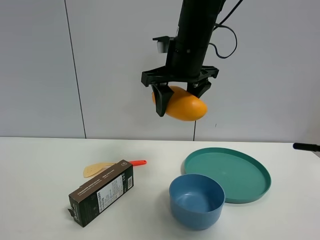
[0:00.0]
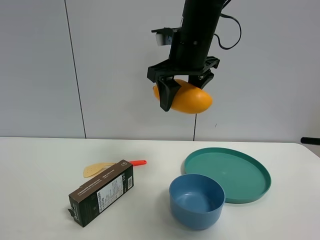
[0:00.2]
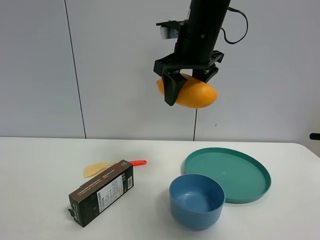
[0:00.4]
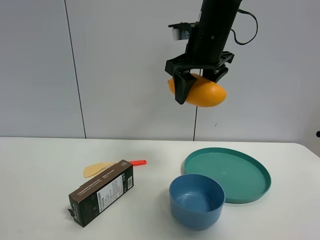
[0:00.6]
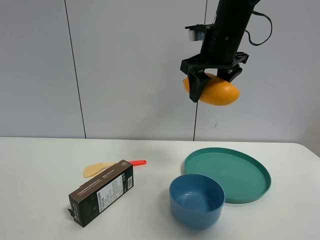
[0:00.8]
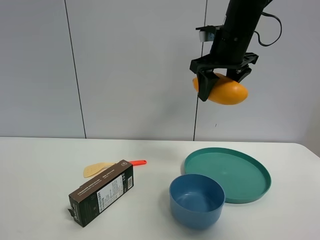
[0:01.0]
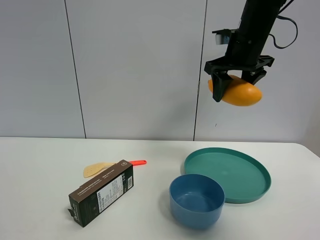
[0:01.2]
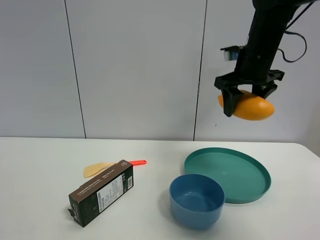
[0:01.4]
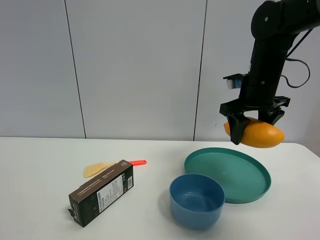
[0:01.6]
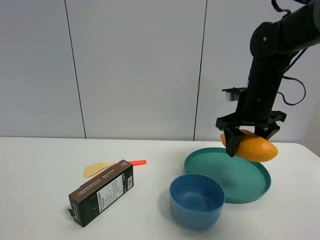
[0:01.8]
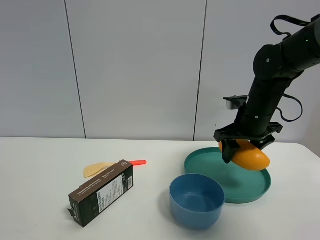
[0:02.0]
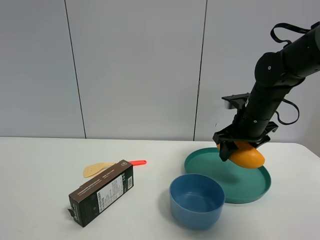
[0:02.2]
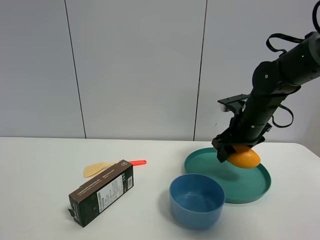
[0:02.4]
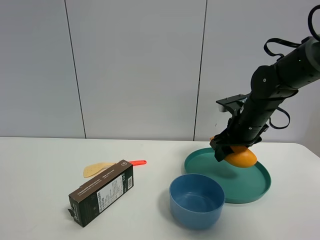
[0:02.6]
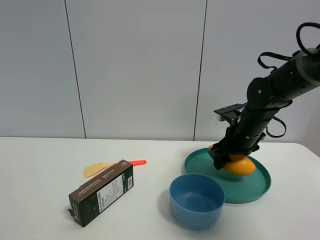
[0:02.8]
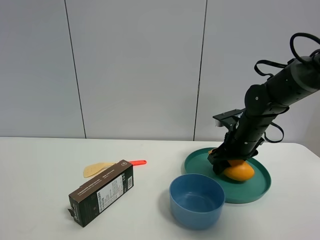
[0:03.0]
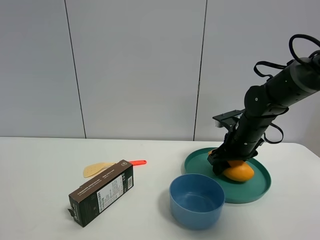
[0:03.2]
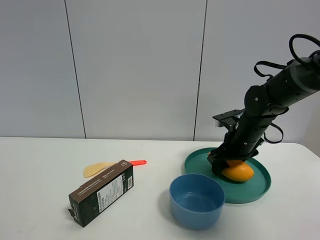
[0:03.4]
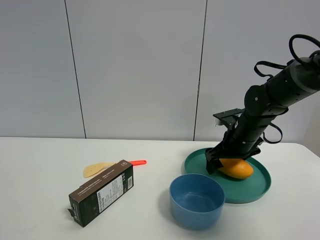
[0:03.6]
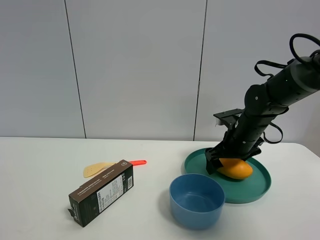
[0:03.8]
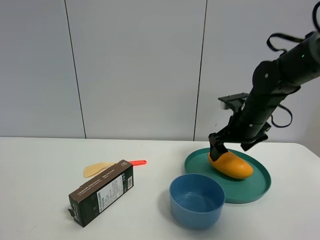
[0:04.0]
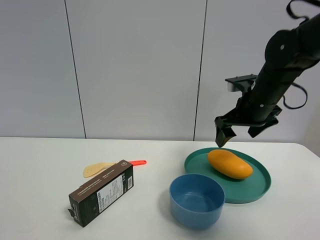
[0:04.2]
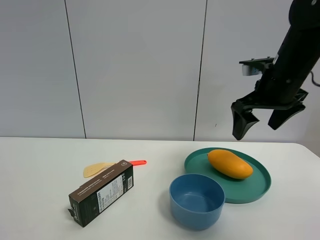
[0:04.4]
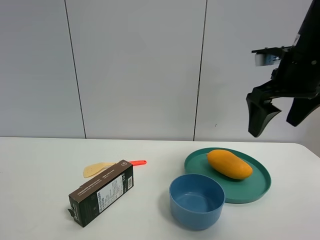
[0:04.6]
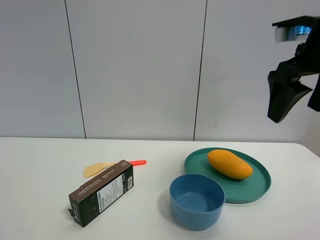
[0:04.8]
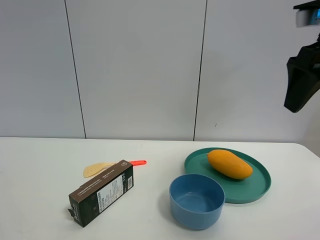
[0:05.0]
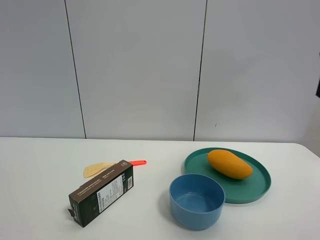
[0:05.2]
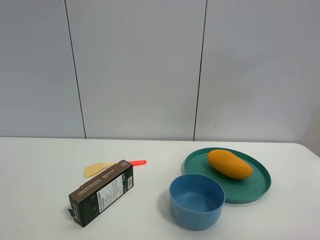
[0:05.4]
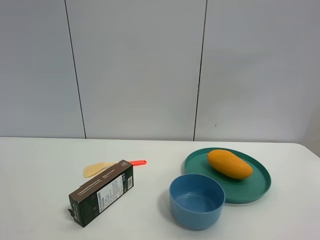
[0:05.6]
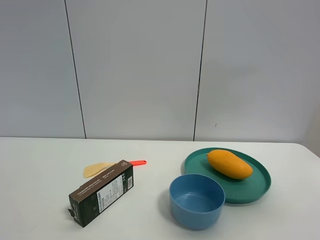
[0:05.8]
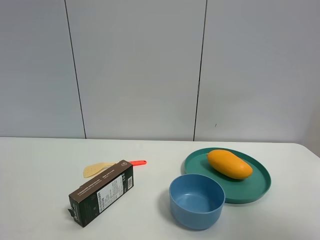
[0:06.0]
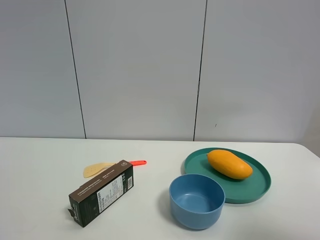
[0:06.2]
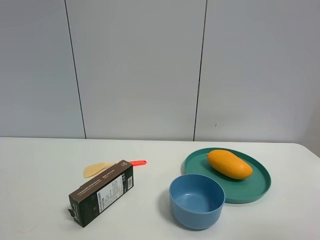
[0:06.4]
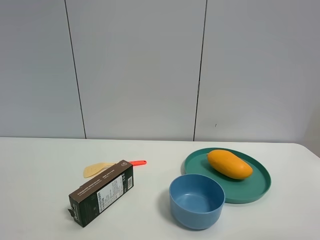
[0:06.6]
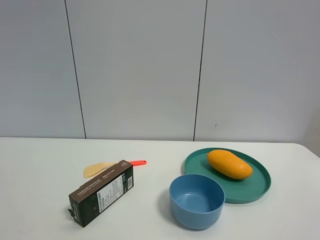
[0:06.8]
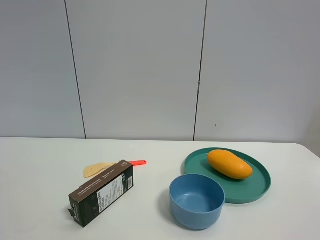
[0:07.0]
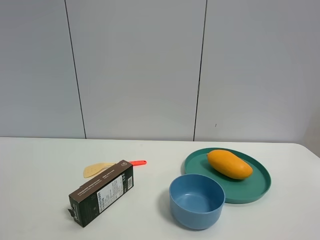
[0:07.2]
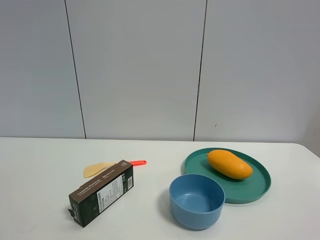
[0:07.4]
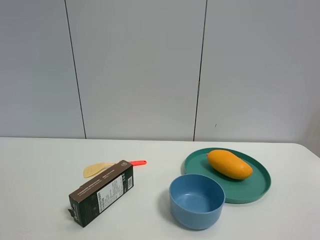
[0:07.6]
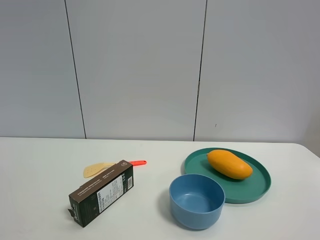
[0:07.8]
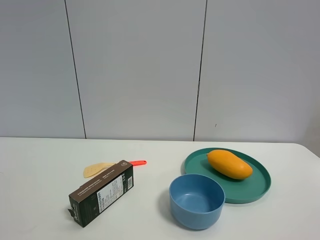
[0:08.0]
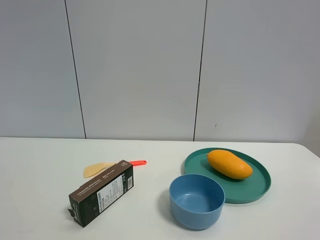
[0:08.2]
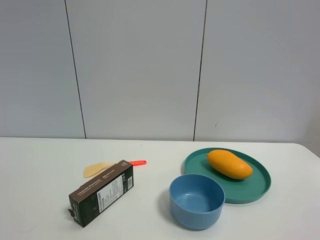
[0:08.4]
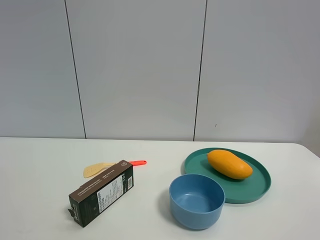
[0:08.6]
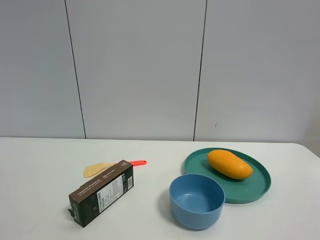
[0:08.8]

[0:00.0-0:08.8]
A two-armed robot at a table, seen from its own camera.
Task of the whole recording: the gripper move the object.
Step, 0:00.0 to 0:04.2: Place the mango into the green plate with the right gripper.
0:00.0 to 0:01.4: The right gripper is displaced to the right by roughly 15 cm.
0:01.4 to 0:03.0: The right gripper goes some 15 cm downward.
0:03.0 to 0:04.4: The right gripper goes some 15 cm upward and backward, and opens its fingers.
0:04.4 to 0:05.8: The right gripper heads backward, upward and to the right, covering some 25 cm.
0:05.8 to 0:07.4: The right gripper heads backward and downward, covering about 20 cm.
0:07.4 to 0:08.8: Both grippers stay about where they are.

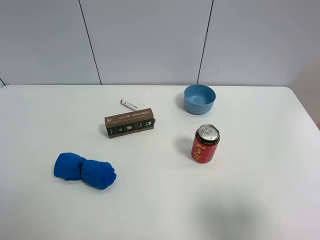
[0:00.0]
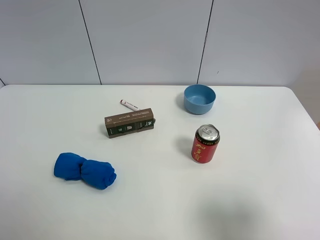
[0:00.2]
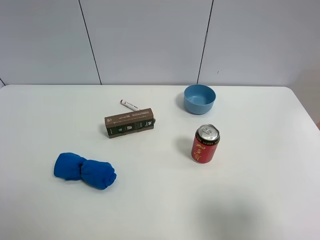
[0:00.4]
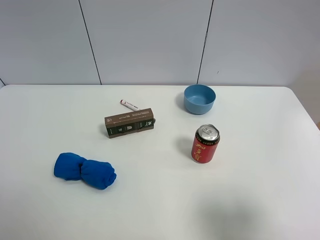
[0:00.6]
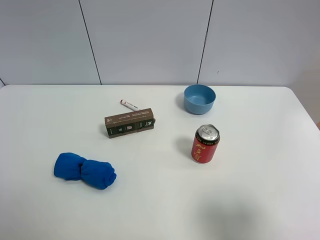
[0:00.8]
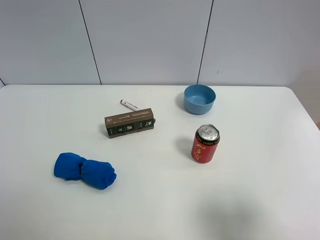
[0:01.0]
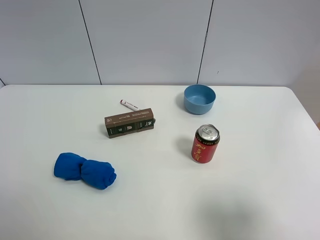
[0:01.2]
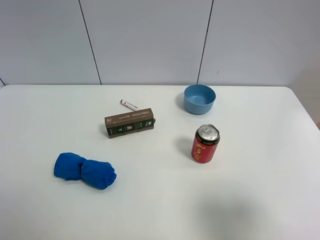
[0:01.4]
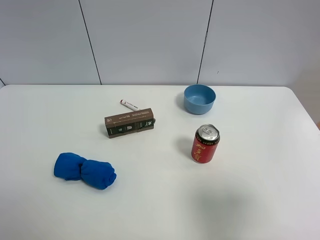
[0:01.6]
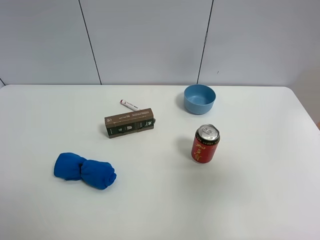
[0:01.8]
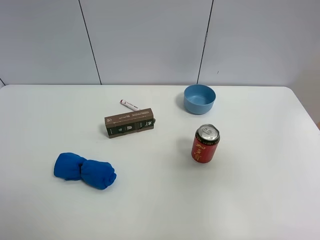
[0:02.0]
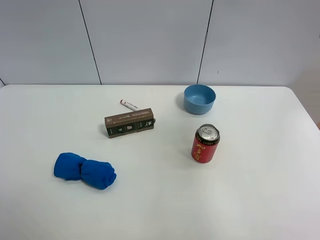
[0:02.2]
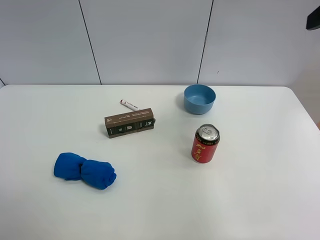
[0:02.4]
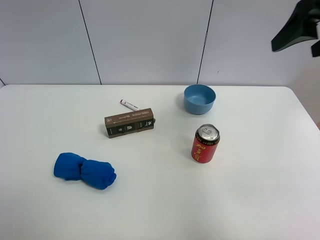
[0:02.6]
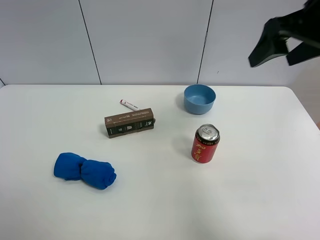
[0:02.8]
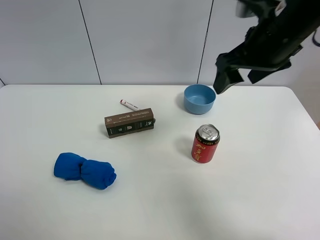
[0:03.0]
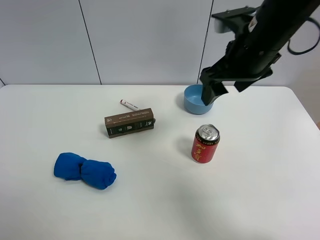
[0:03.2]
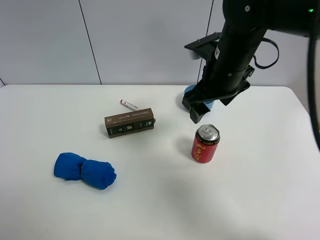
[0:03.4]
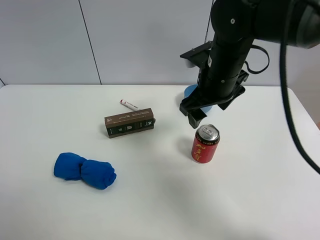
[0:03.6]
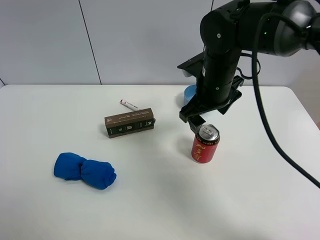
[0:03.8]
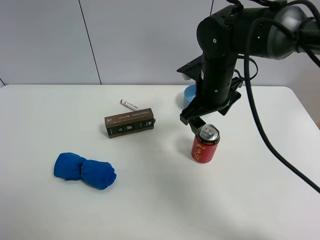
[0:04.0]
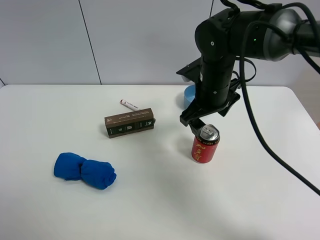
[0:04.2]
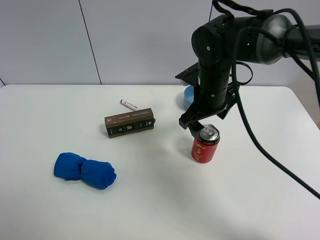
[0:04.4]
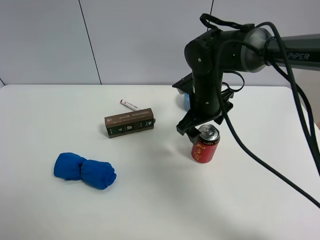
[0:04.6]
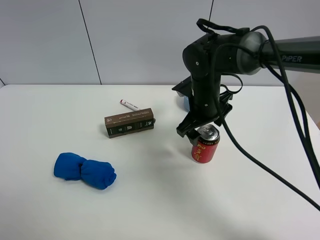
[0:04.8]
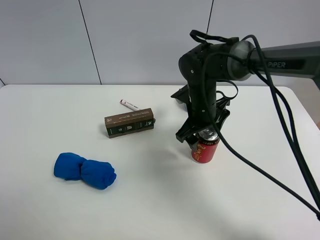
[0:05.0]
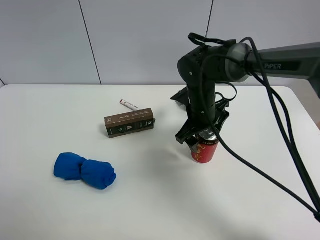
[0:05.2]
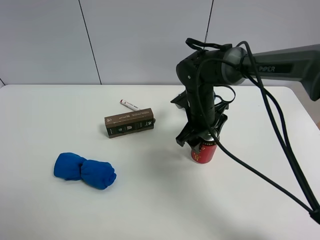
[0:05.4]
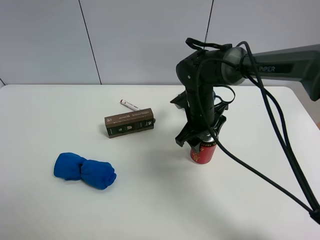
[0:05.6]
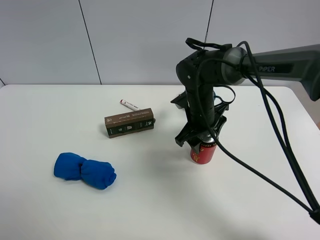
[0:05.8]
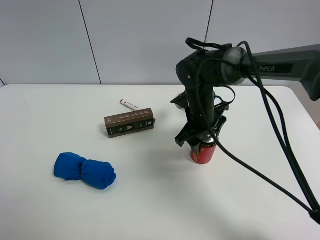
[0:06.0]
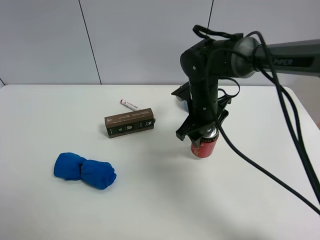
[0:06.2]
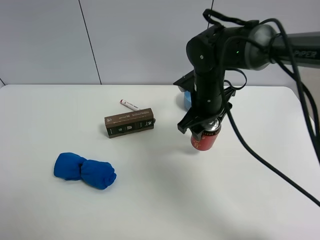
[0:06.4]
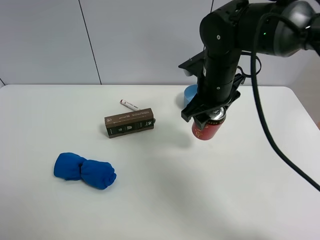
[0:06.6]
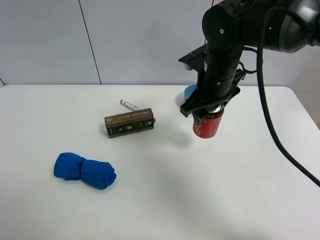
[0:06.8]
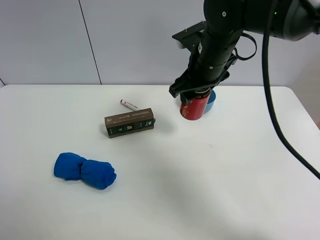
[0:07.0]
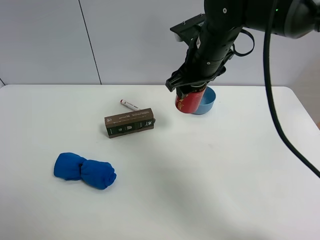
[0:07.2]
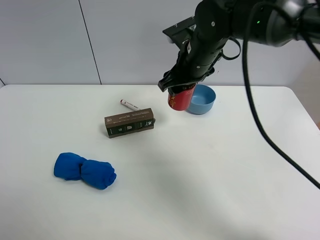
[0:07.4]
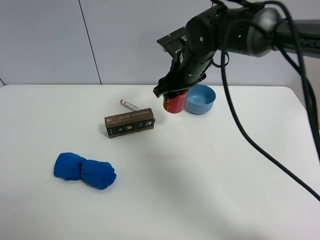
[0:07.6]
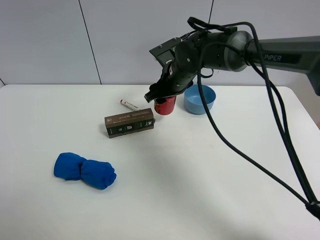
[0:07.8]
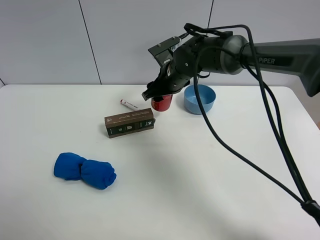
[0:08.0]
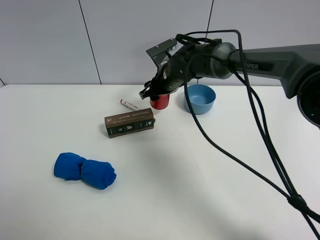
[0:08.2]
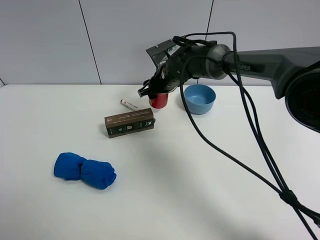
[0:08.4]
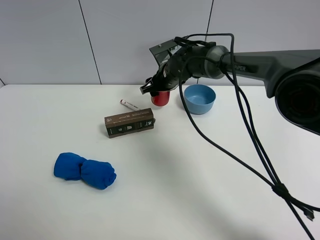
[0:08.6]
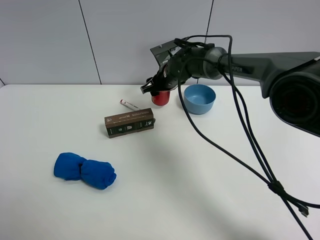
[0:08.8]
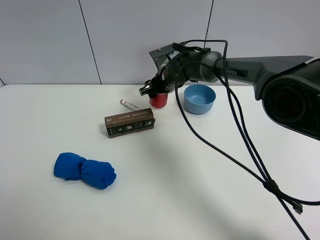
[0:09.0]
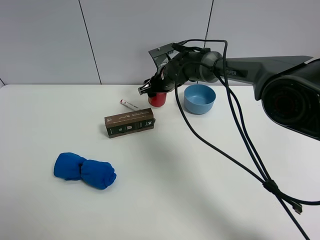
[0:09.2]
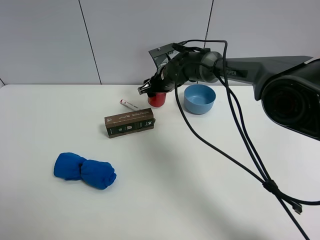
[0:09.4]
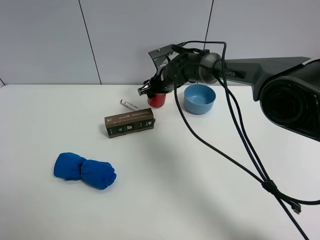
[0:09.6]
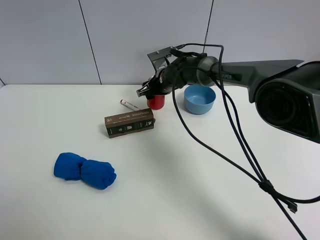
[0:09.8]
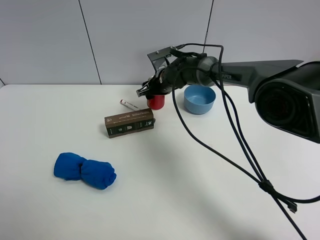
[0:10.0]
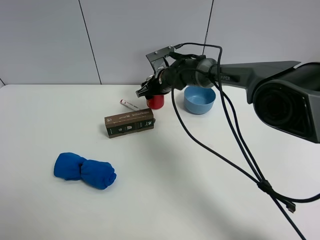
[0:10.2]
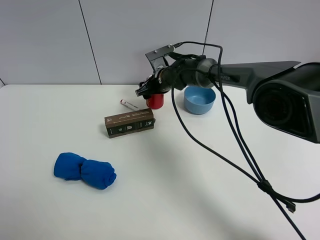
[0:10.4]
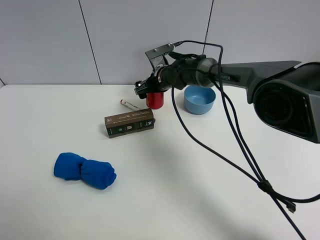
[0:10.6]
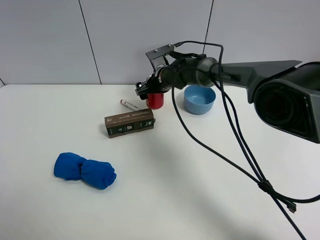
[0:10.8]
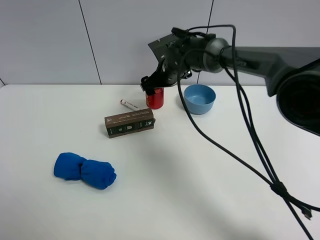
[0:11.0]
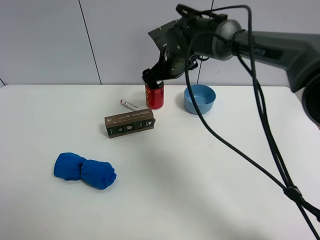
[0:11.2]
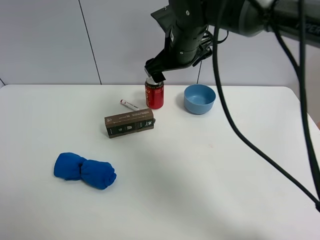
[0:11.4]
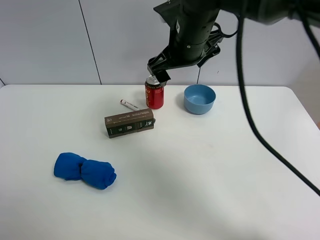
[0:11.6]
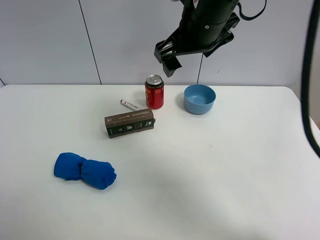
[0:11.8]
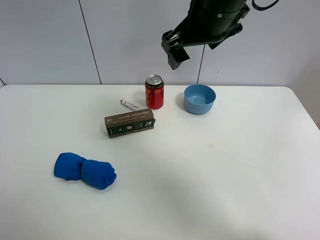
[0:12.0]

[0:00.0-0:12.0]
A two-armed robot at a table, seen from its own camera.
Task of the whole recording: the gripper move the object.
Step, 0:00.0 to 0:05.4: Grasp the Jia Duo Bao with the right gripper.
Step, 0:05.6 to 0:10.6: Place the Jia Duo Bao on the table with the right gripper.
0:00.0 to 0:01.6: The right gripper shifts some 5 cm upward, and closes its fingers.
0:01.6 to 0:03.0: The right gripper goes approximately 30 cm forward and to the left.
0:03.0 to 0:04.4: The right gripper heads downward and to the left, covering some 15 cm.
0:04.4 to 0:06.0: The right gripper goes some 5 cm downward, and closes its fingers.
0:06.0 to 0:07.6: The right gripper moves upward, roughly 10 cm.
0:07.6 to 0:09.0: The right gripper travels downward and forward by about 10 cm.
0:09.0 to 0:10.4: The right gripper opens its fingers.
0:10.4 to 0:12.0: The right gripper shifts about 30 cm upward and backward.

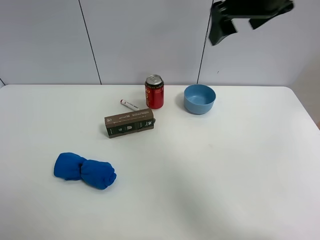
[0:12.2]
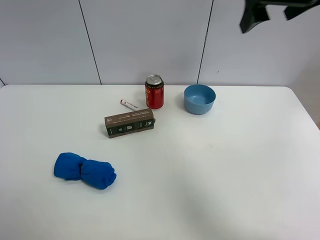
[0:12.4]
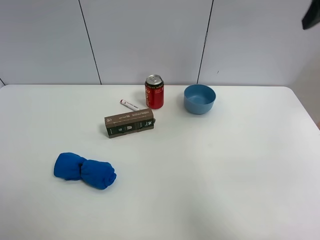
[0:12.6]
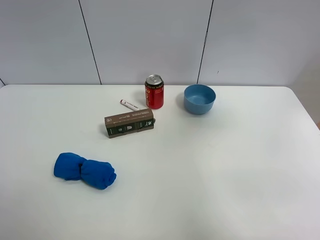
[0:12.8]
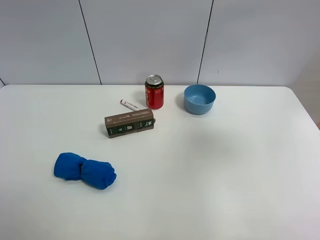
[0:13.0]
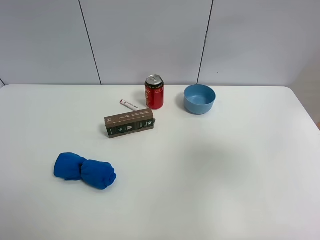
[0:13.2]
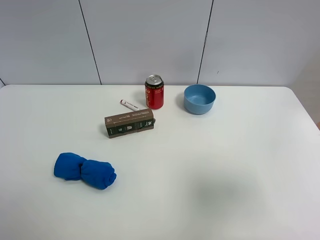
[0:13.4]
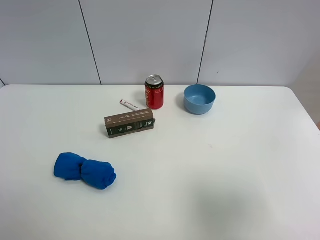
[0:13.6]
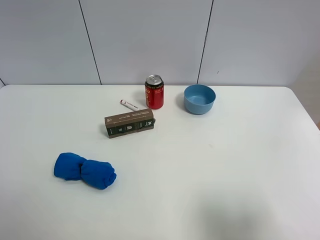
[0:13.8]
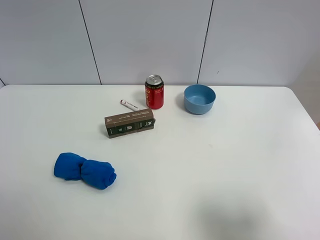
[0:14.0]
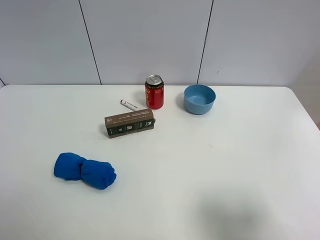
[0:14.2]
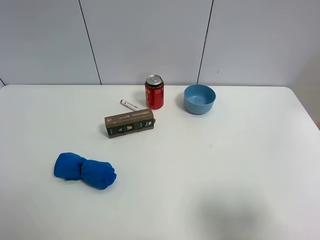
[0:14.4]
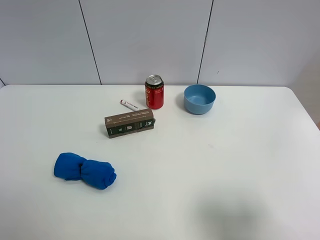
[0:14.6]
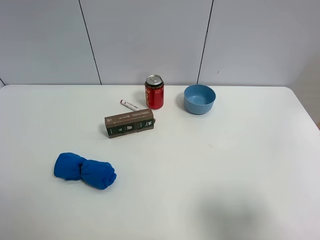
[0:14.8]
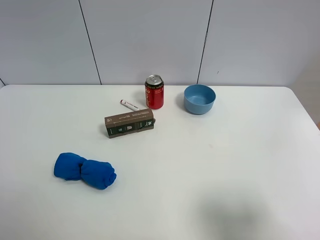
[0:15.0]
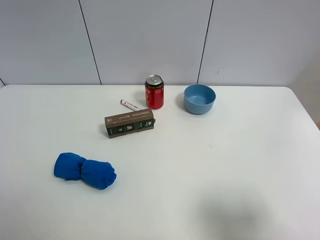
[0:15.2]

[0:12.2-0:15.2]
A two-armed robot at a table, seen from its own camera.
Task of the whole recording: the gripper move the object.
0:12.2 to 0:13.8: The right gripper goes some 35 cm backward.
